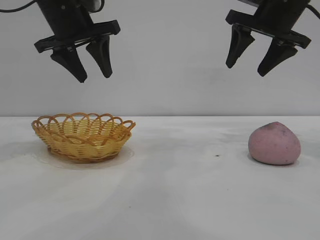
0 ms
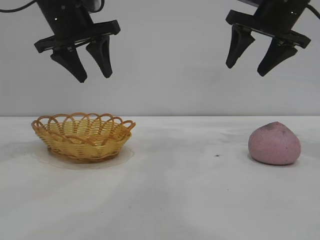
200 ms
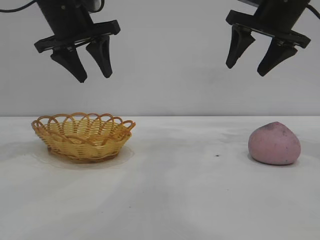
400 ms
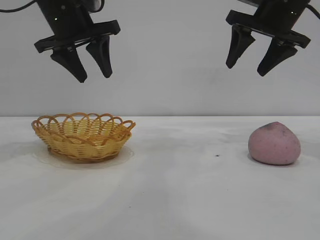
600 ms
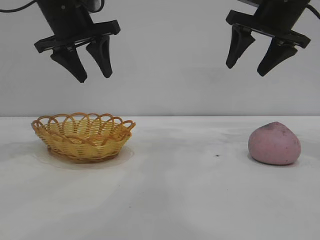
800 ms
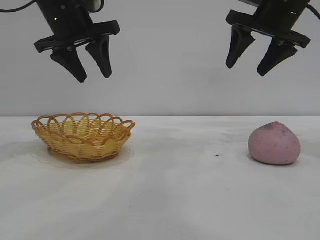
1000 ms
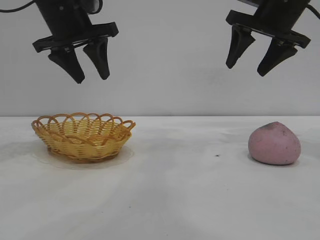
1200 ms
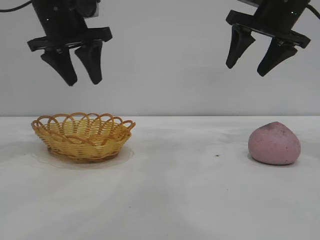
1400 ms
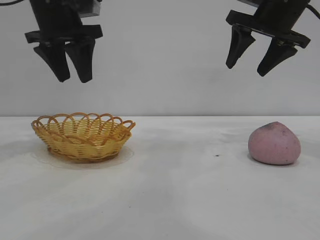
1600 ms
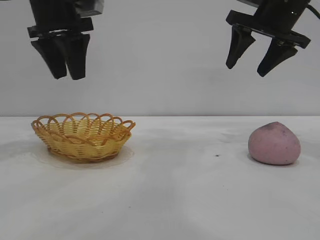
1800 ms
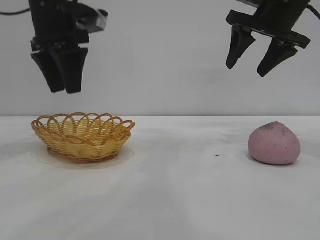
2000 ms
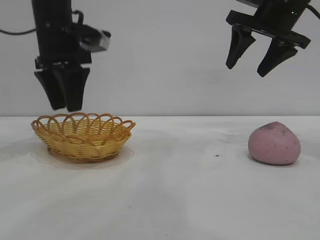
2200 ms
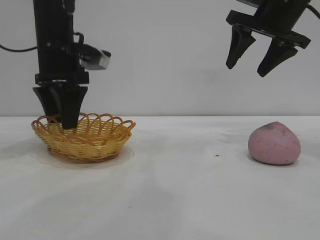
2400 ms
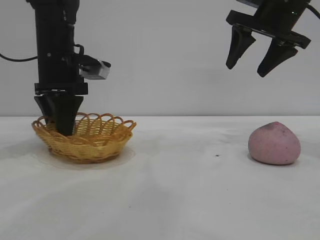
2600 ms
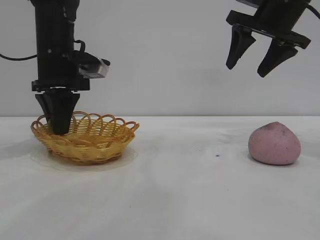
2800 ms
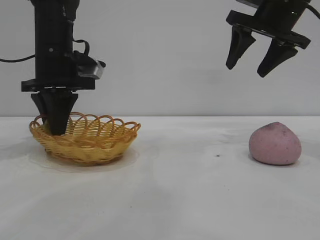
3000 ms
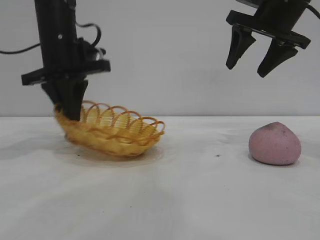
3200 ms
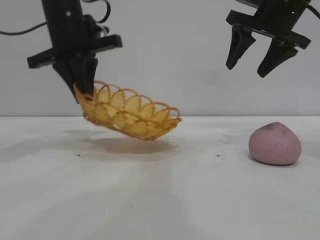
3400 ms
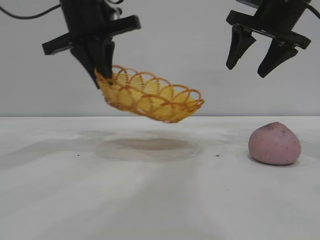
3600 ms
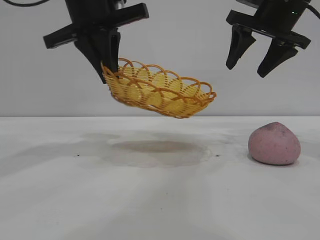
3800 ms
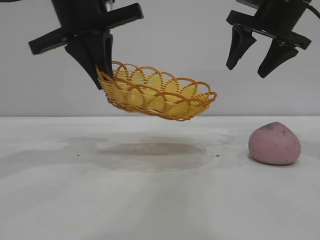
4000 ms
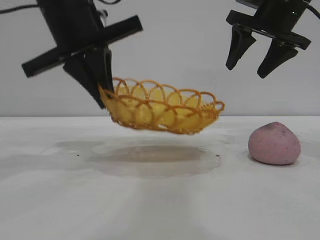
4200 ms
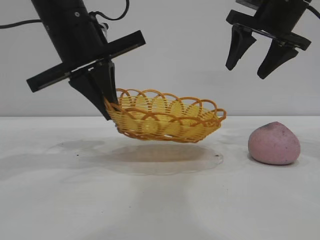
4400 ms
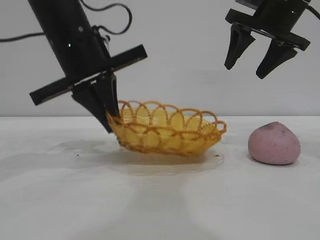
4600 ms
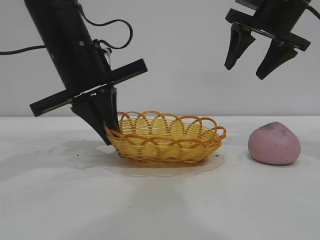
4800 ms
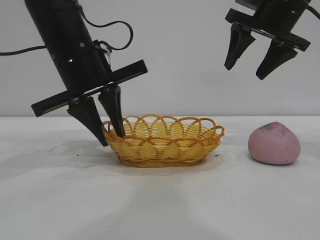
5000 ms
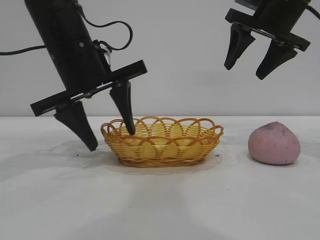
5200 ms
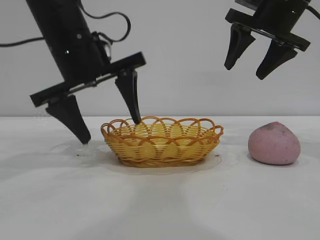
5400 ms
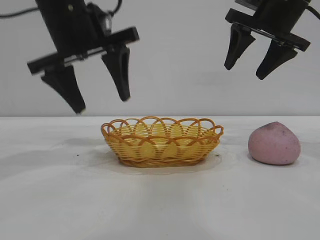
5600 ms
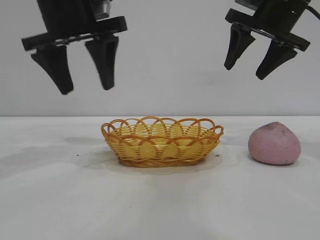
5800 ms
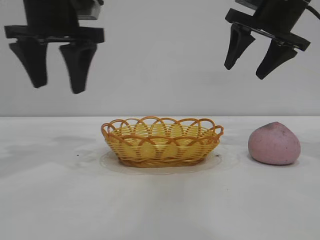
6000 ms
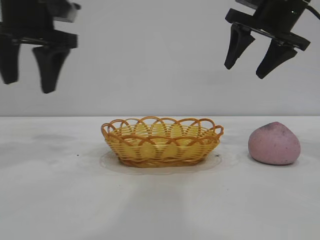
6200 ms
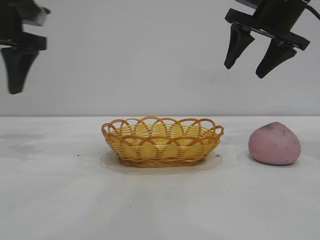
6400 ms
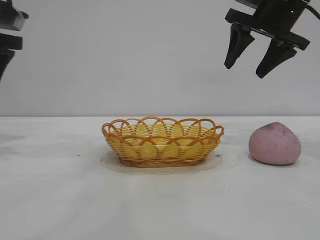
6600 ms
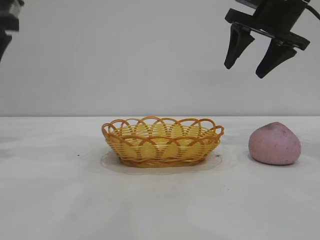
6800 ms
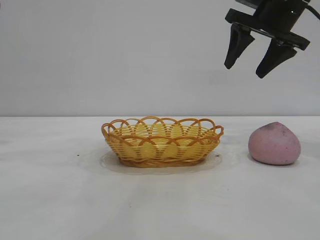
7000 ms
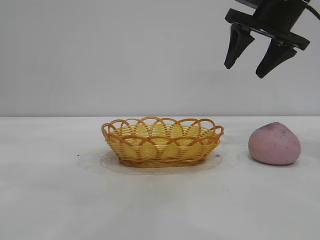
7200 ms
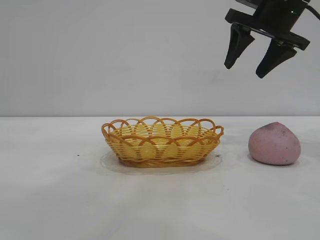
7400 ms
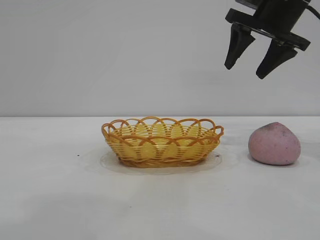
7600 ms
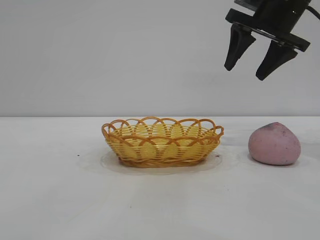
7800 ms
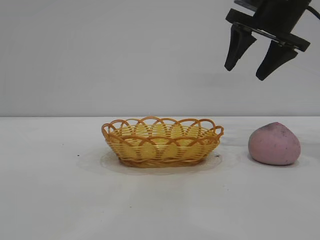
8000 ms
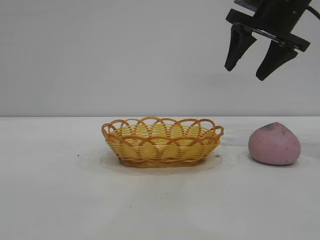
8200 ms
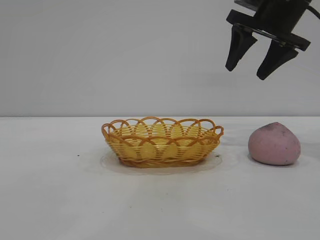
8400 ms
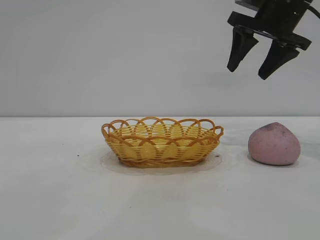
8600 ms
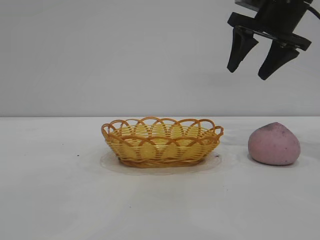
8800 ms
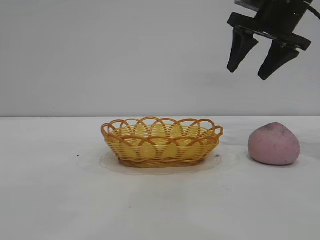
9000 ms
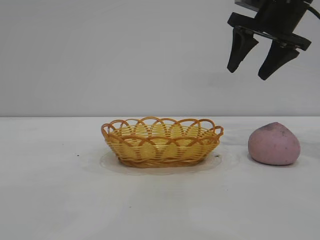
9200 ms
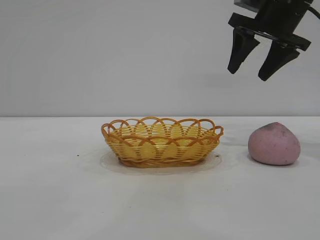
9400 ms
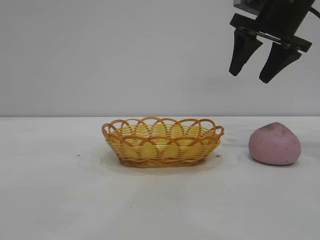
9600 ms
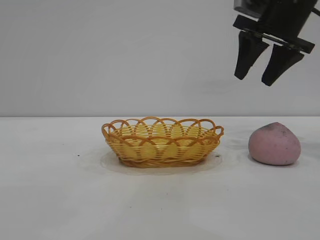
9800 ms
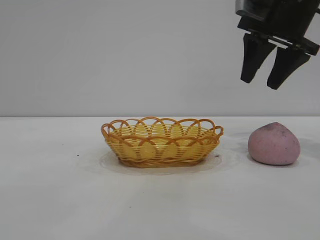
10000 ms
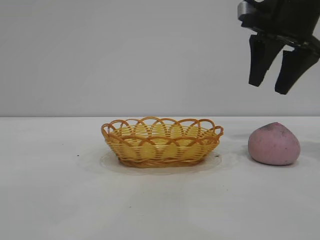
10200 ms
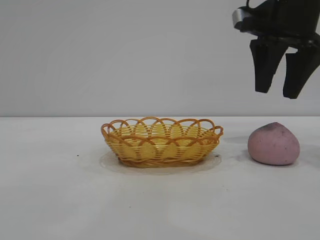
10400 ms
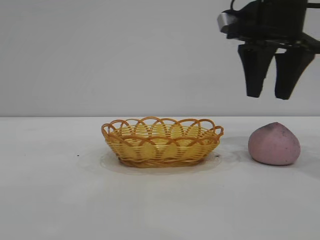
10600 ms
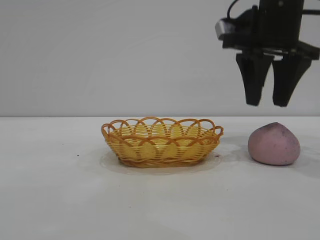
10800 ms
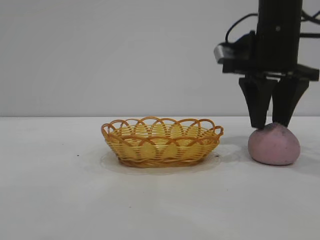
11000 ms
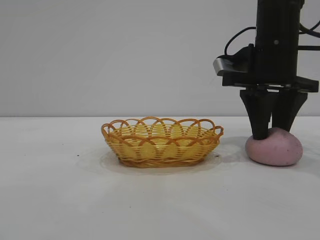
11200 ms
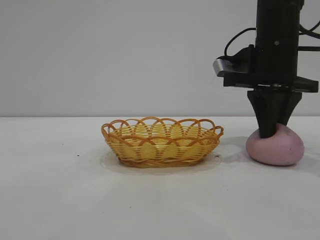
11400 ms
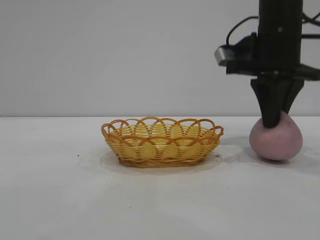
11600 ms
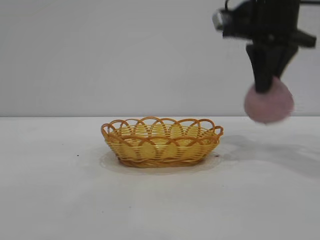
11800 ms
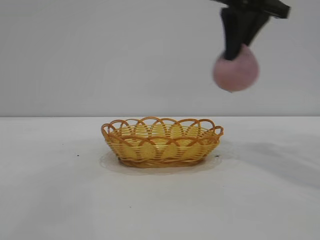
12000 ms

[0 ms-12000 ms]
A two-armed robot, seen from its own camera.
Task of the whole recording: pick up the peach and put it into the basket.
Step, 0 ms to 5600 ms: Move the basket to the center of view.
Step, 5800 ms to 11800 ms: Pick up the peach.

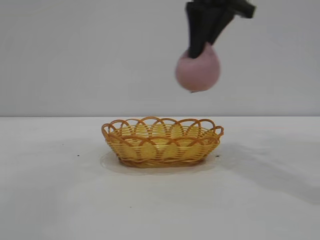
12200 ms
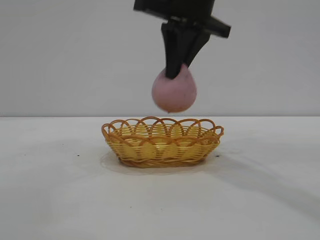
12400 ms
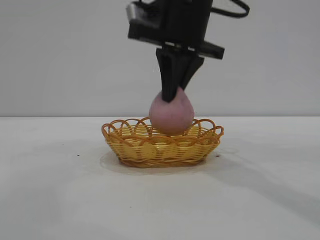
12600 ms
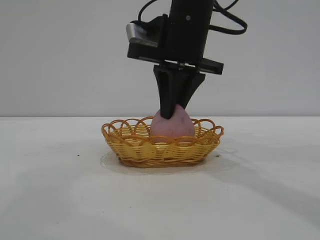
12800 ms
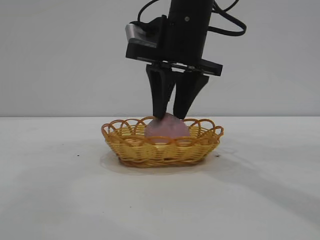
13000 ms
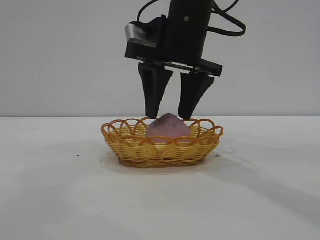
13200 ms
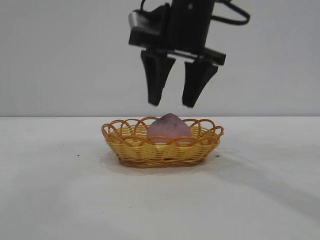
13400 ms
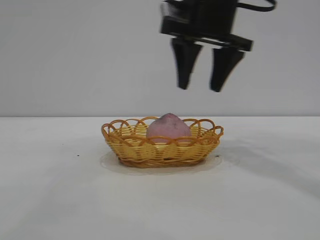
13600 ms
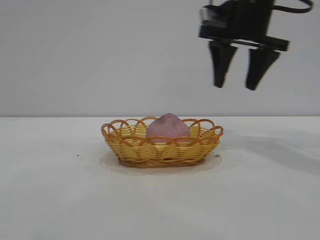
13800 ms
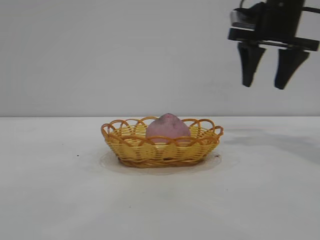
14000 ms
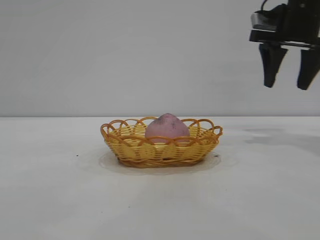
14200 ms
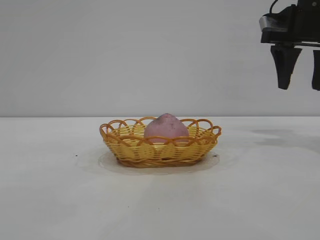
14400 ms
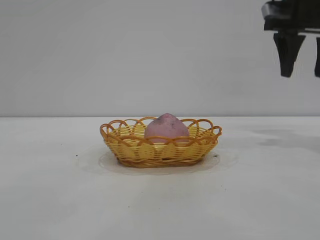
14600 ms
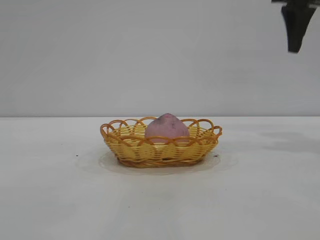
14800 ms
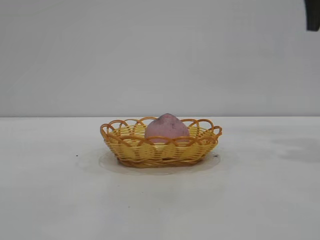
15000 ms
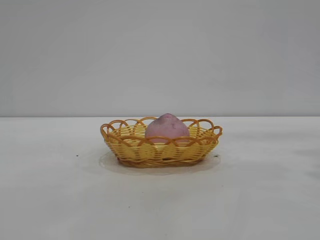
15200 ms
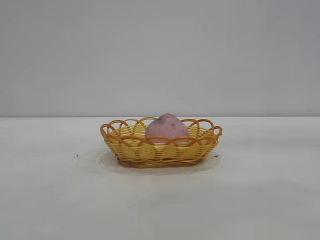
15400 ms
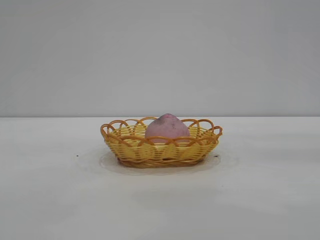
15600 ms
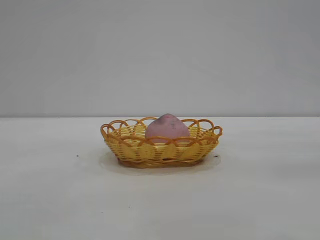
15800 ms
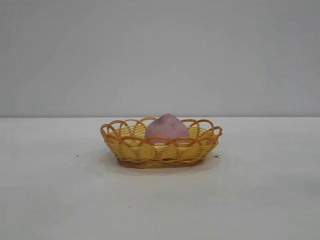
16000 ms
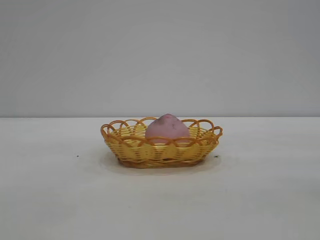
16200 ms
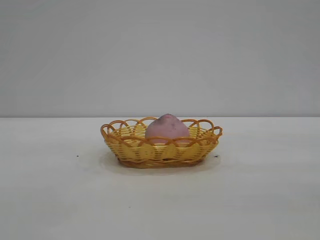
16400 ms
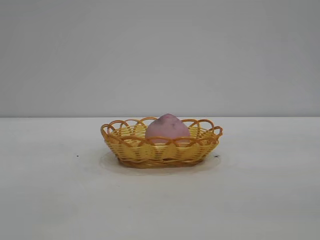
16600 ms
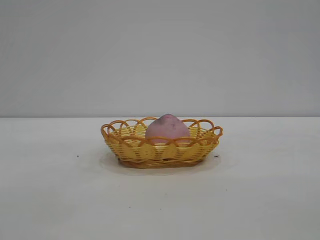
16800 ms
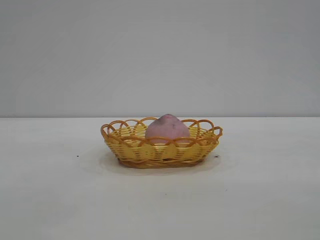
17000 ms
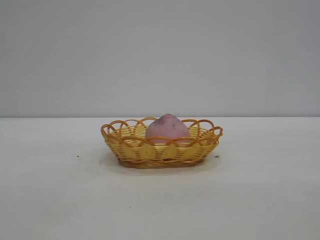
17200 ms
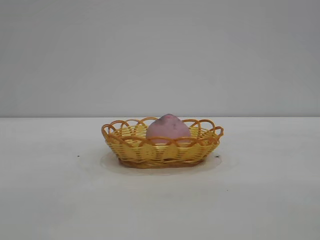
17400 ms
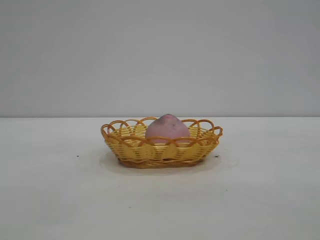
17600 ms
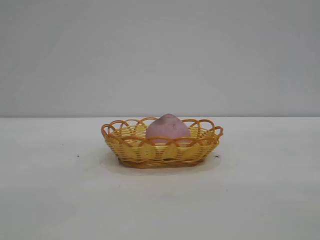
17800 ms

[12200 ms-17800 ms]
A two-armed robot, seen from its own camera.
Task of the whole recording: pick up the peach and put it into the basket.
Step, 12200 ms to 13600 ms: place the peach into the basket.

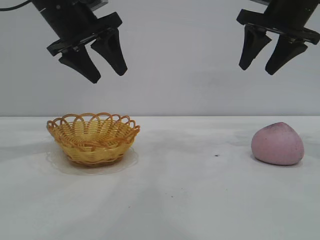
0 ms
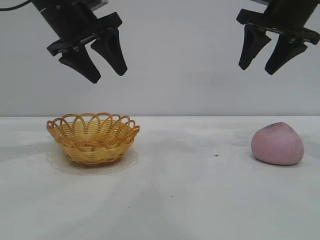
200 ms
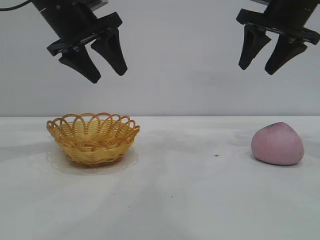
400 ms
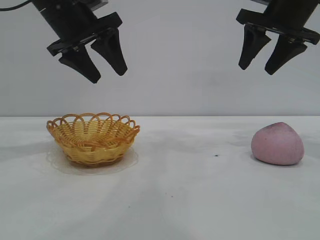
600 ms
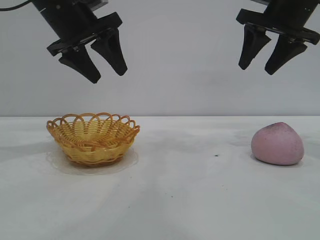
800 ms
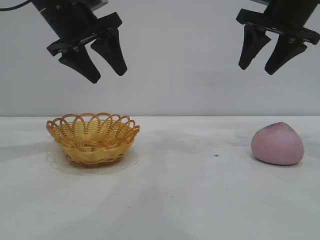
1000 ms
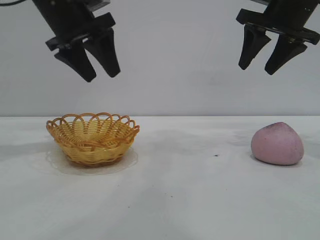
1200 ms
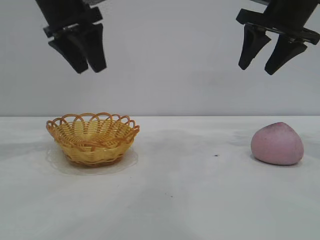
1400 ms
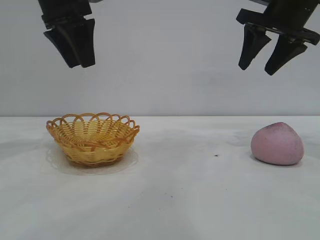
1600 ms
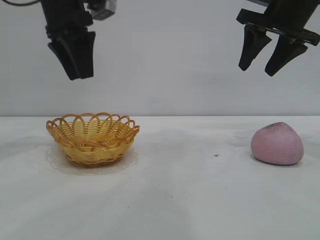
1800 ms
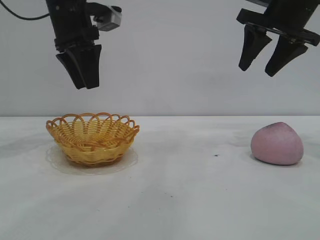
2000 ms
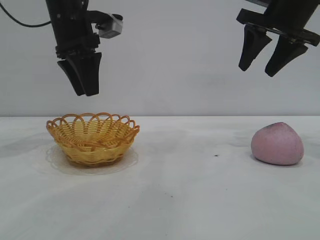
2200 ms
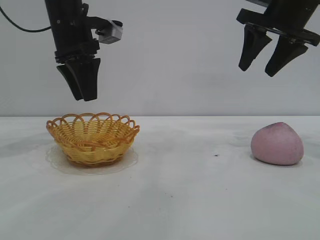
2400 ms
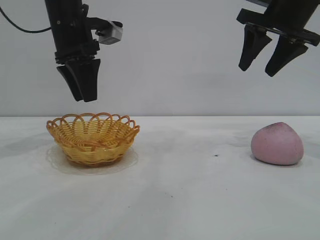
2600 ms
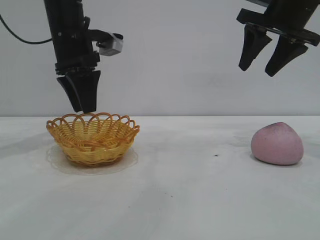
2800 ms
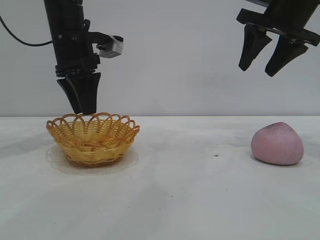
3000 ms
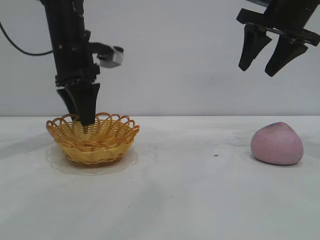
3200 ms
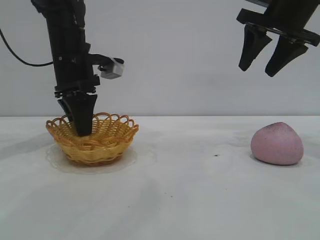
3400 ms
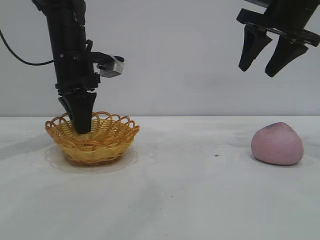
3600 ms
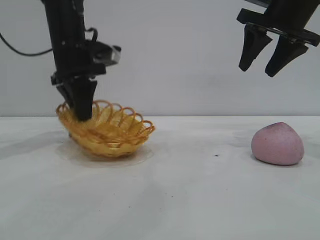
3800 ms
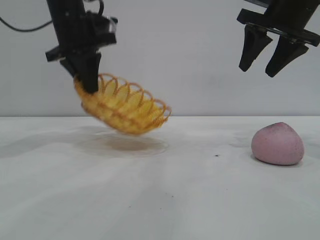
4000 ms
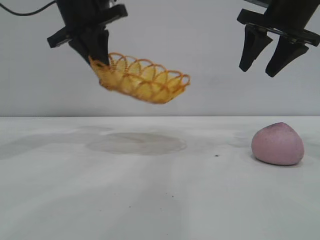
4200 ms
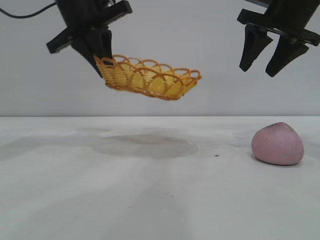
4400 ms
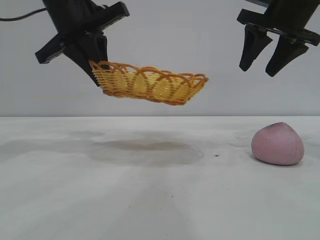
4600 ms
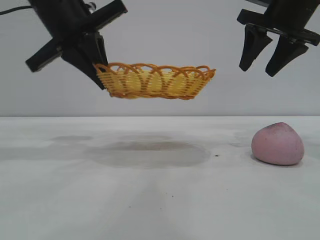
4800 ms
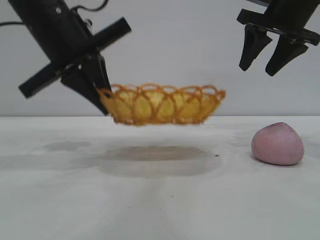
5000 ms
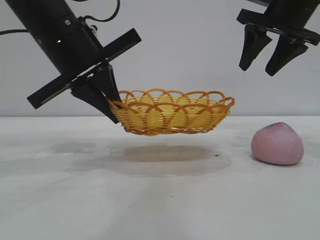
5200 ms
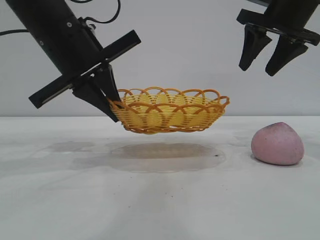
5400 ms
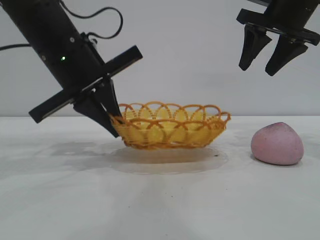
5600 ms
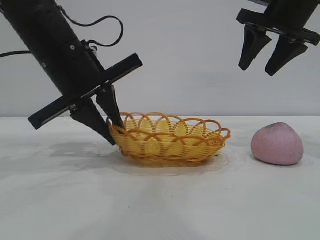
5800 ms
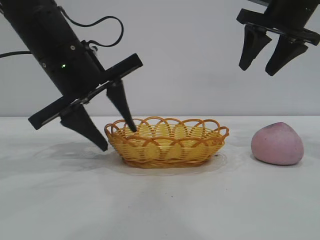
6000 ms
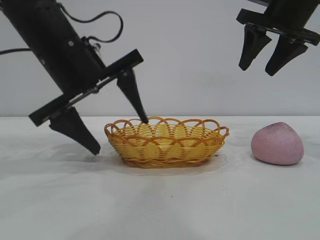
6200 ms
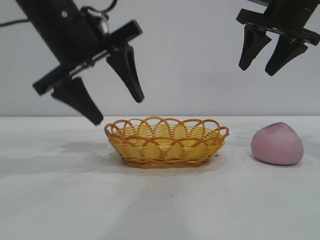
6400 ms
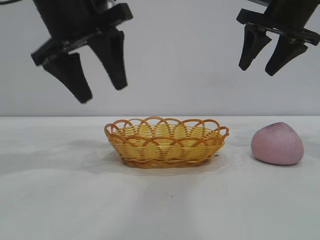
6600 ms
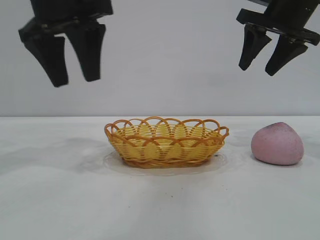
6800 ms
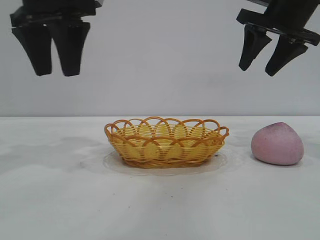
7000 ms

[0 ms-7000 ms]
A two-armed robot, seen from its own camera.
Task of the whole recording: pick up the peach and put it into the basket.
Step, 0 ms to 6400 ms: Move the basket to the center of view.
